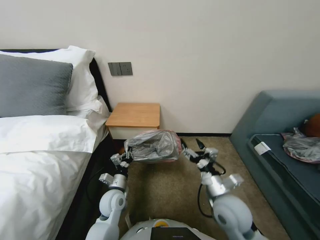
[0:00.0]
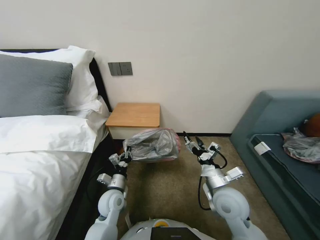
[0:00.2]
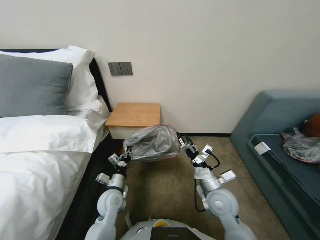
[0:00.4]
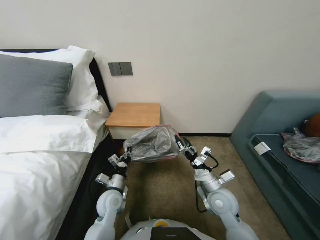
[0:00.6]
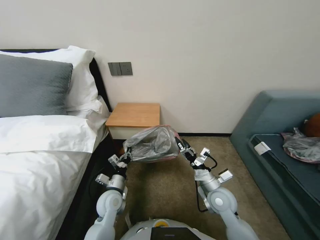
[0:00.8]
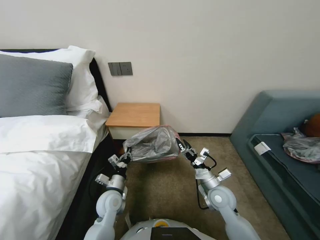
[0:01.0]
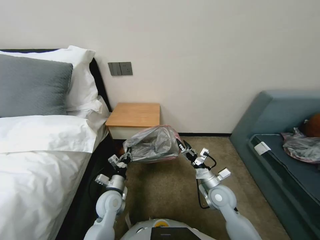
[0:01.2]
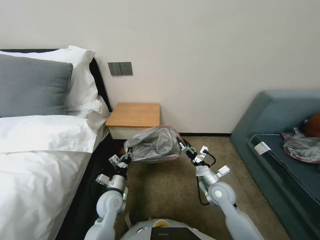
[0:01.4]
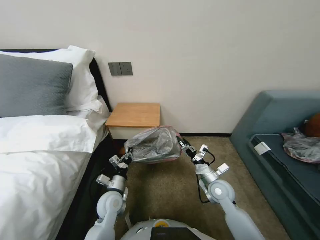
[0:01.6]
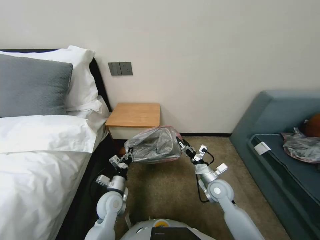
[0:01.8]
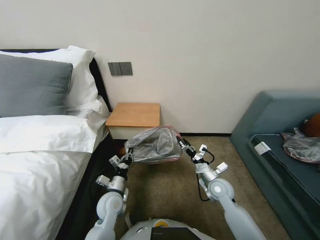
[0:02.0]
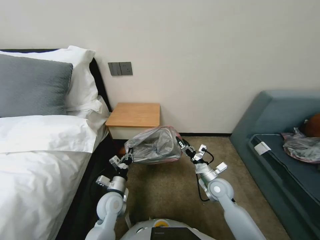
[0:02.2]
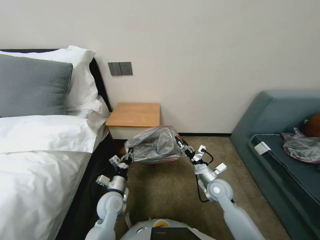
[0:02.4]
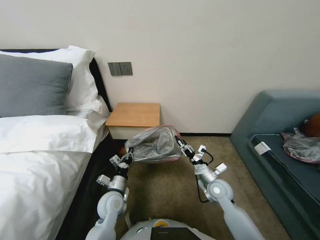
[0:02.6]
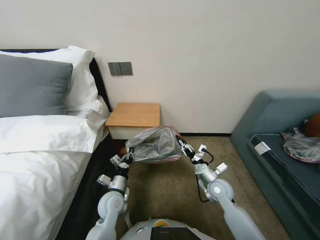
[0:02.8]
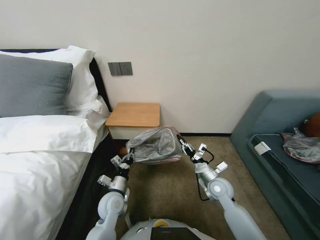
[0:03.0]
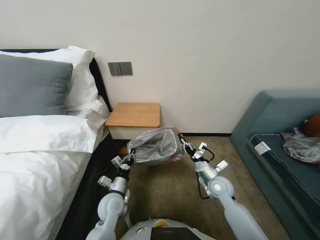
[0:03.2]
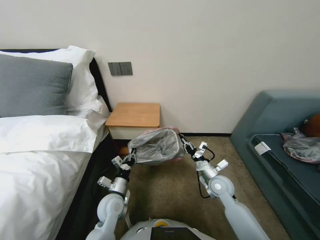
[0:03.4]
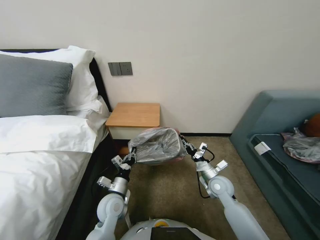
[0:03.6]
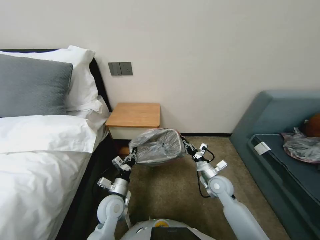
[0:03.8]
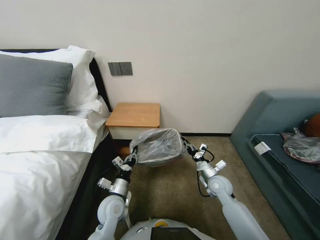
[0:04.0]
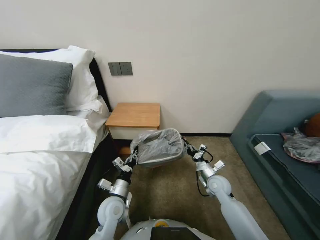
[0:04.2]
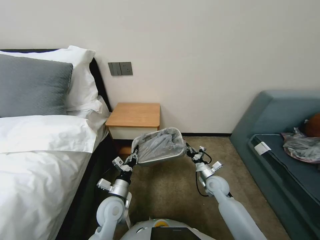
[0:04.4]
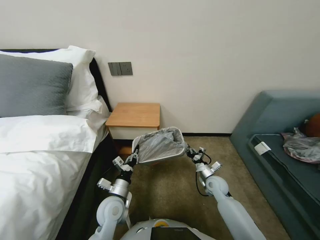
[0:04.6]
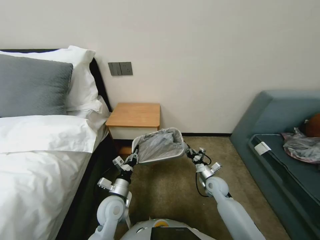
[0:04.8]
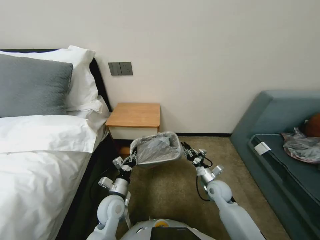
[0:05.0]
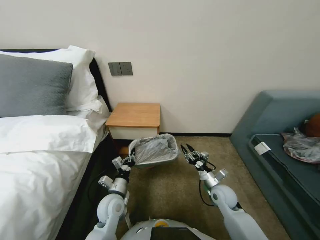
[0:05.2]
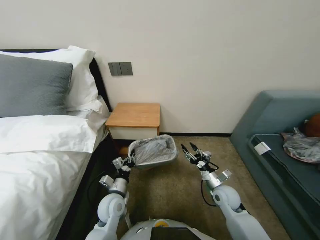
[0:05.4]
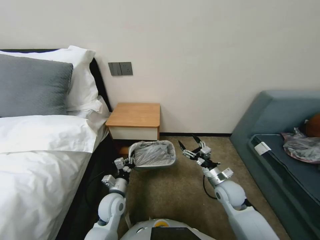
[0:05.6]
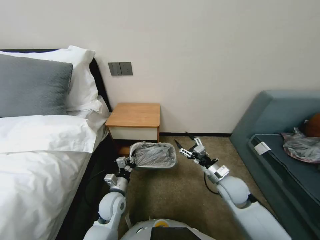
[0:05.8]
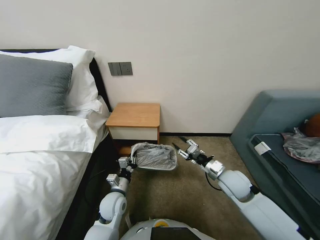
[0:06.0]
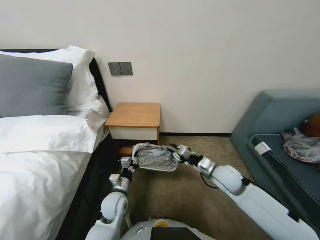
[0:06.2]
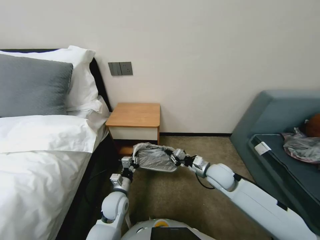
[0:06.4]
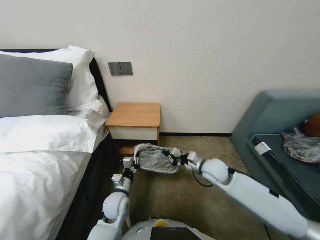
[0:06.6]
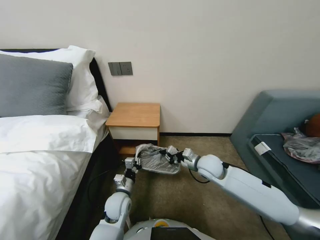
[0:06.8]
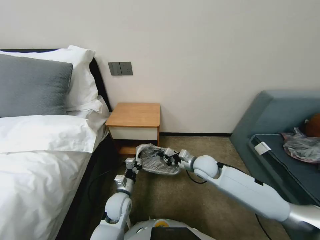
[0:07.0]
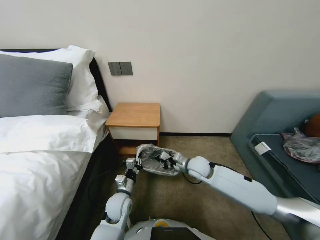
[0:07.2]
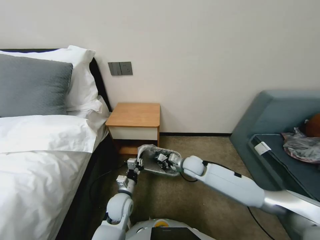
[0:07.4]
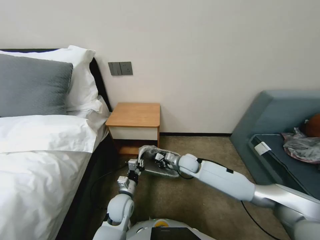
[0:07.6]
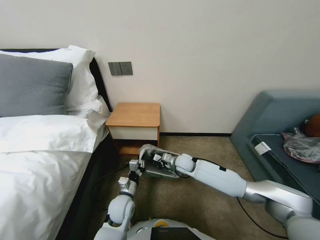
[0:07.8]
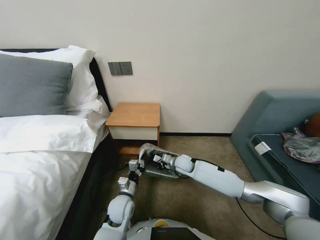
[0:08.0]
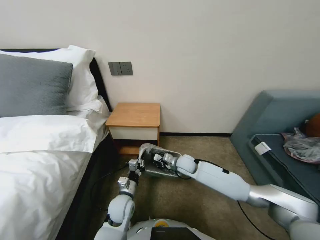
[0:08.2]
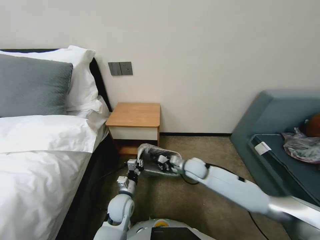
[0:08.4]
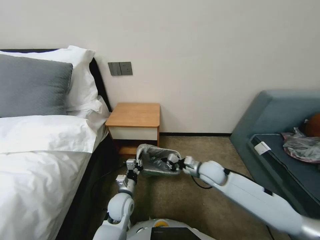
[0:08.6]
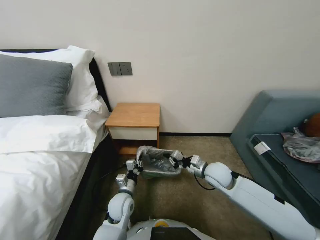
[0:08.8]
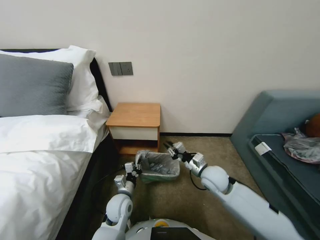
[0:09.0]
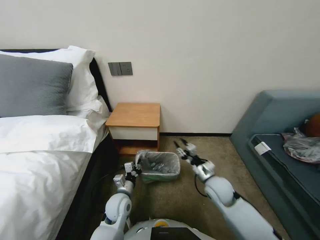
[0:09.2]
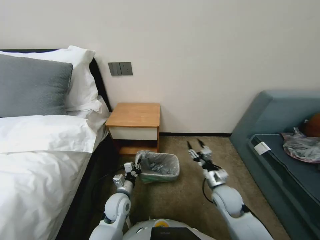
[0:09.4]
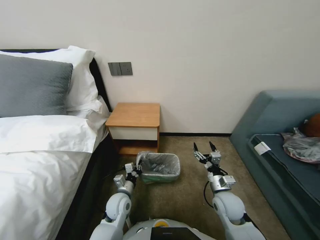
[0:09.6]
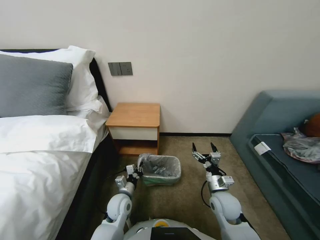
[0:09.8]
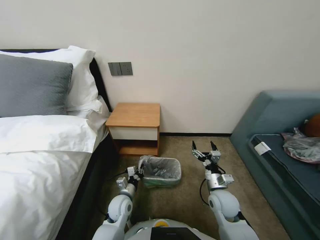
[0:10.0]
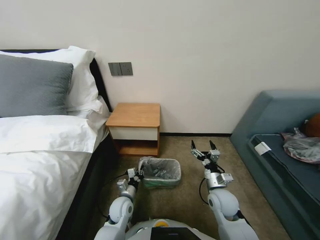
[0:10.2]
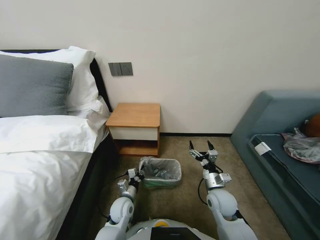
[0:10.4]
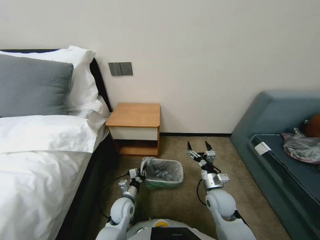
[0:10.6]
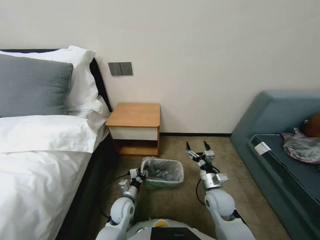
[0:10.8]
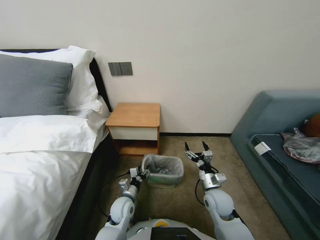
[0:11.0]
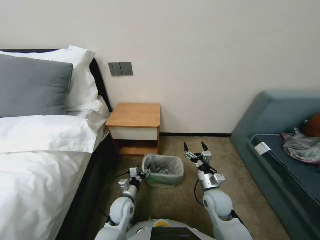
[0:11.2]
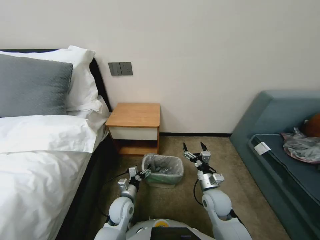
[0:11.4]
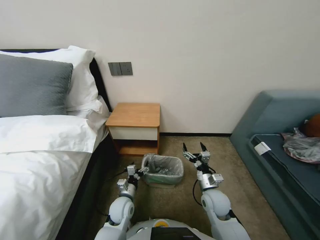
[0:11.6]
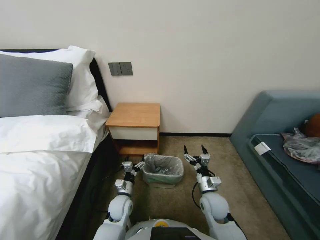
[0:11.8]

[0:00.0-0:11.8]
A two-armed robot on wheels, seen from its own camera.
Task of the whole recording: Pick up the garbage bag from the table and place it over the trash can.
0:00.0 to 0:01.4: The right gripper goes about 15 cm forward, downward and to the right.
0:01.4 to 0:03.0: The right gripper closes.
0:03.0 to 0:04.4: The right gripper moves roughly 5 cm.
0:04.4 to 0:06.0: The right gripper goes roughly 10 cm upward, and opens.
0:06.0 to 0:07.4: The right gripper travels to the left and forward by about 15 cm, and closes its fingers.
0:07.4 to 0:08.8: The right gripper is displaced to the right by about 5 cm.
0:08.8 to 0:10.4: The right gripper shifts about 10 cm backward and downward, and opens its fingers, while the left gripper travels downward by approximately 5 cm.
0:10.4 to 0:11.8: The left gripper opens its fingers.

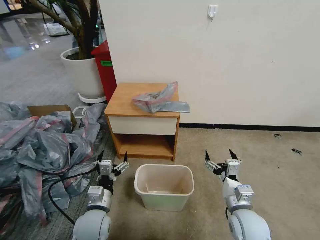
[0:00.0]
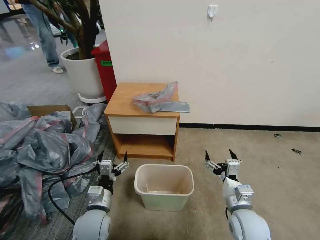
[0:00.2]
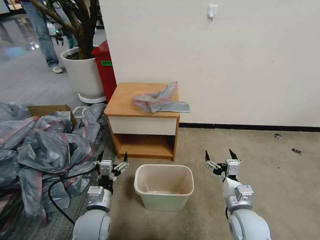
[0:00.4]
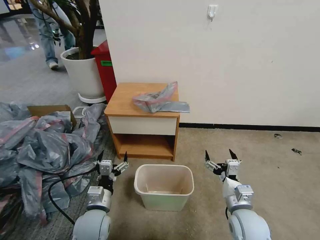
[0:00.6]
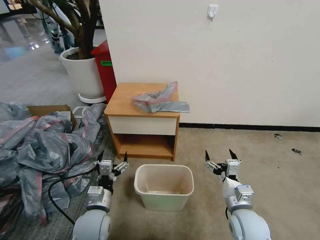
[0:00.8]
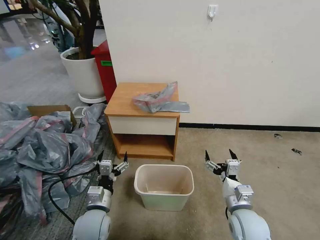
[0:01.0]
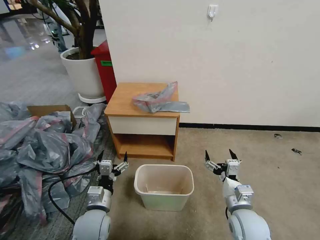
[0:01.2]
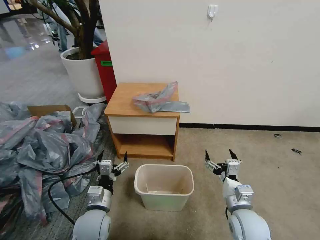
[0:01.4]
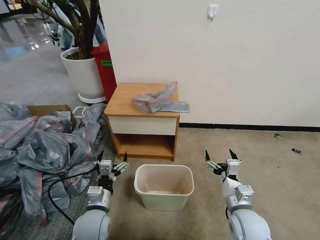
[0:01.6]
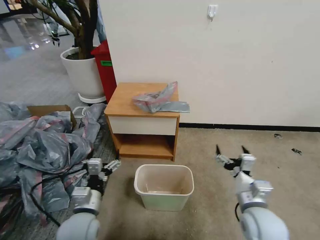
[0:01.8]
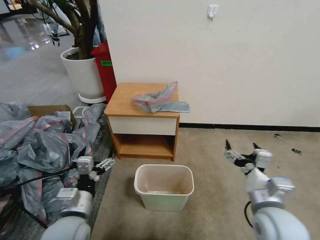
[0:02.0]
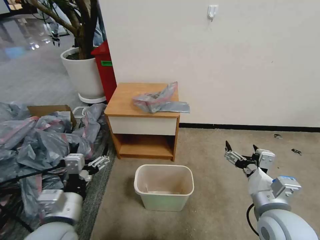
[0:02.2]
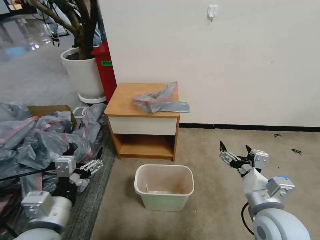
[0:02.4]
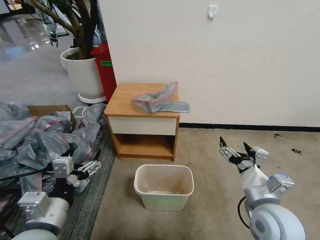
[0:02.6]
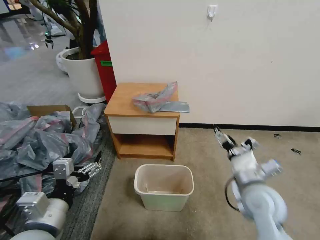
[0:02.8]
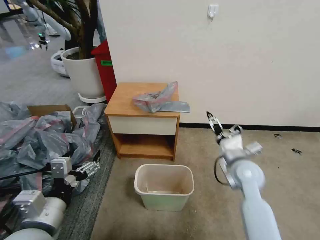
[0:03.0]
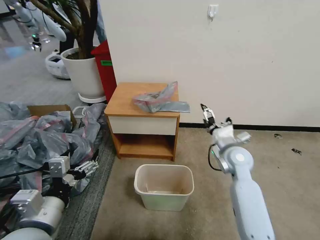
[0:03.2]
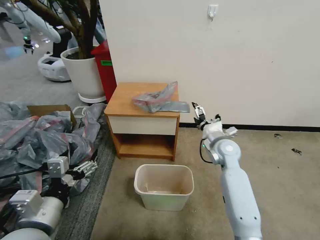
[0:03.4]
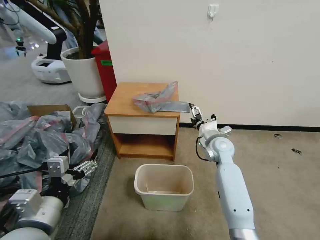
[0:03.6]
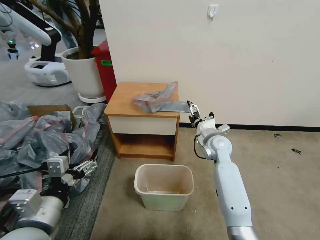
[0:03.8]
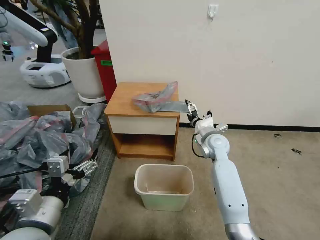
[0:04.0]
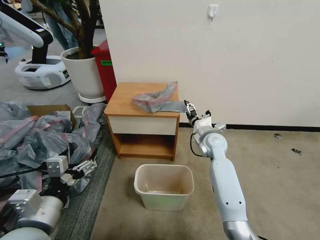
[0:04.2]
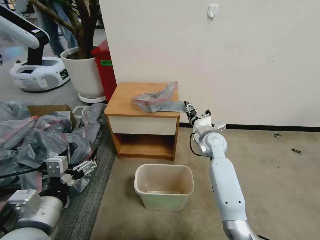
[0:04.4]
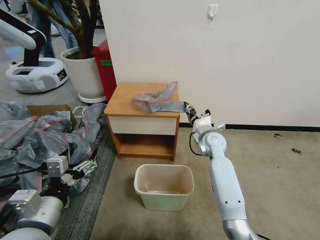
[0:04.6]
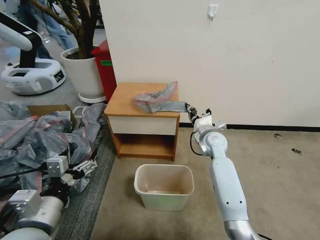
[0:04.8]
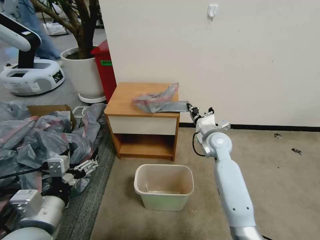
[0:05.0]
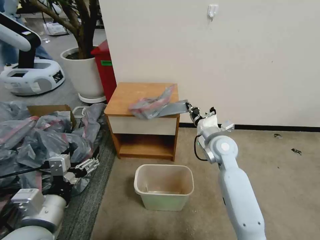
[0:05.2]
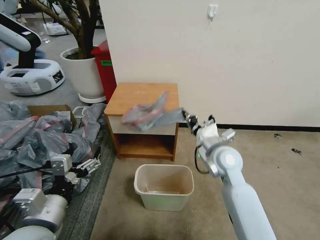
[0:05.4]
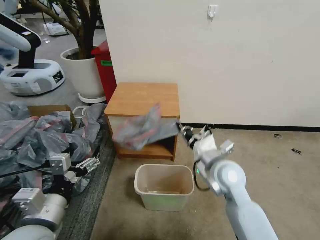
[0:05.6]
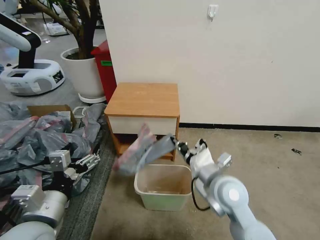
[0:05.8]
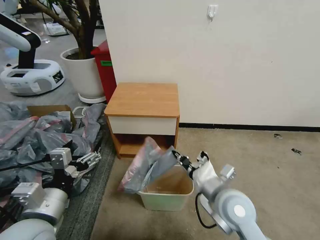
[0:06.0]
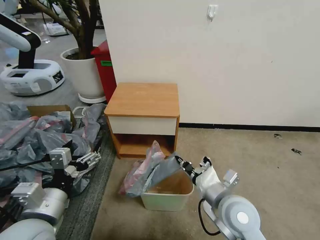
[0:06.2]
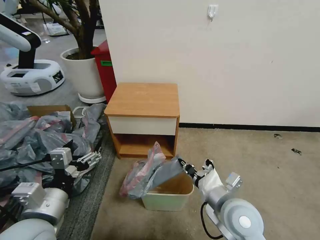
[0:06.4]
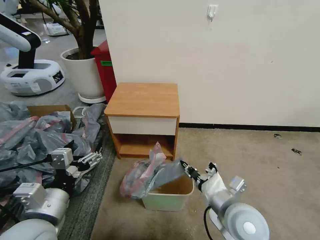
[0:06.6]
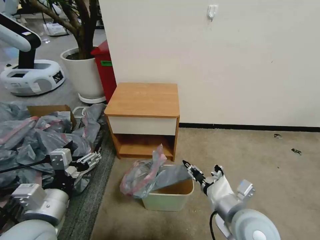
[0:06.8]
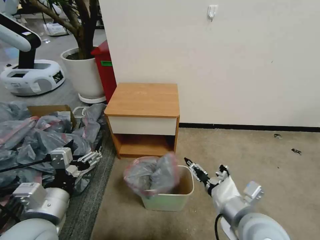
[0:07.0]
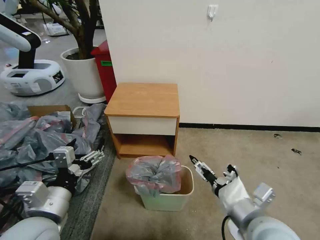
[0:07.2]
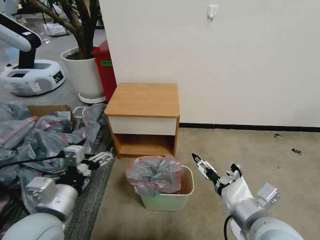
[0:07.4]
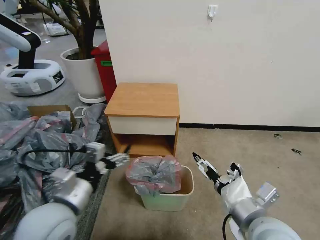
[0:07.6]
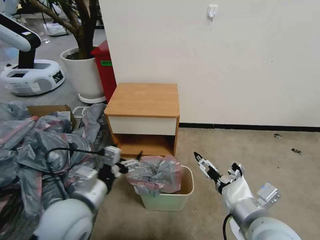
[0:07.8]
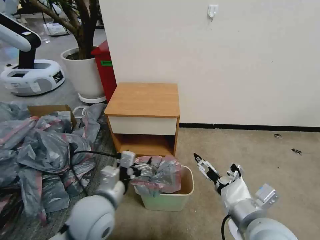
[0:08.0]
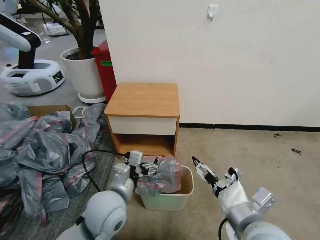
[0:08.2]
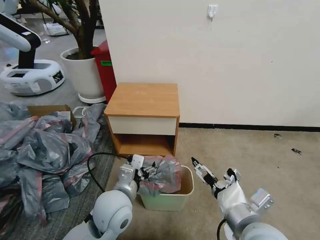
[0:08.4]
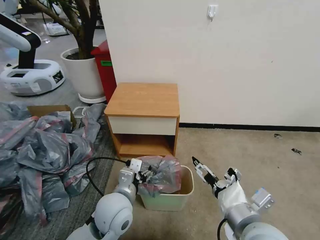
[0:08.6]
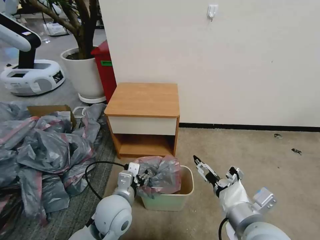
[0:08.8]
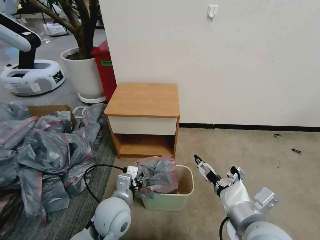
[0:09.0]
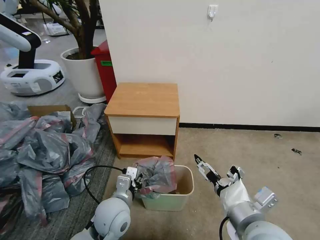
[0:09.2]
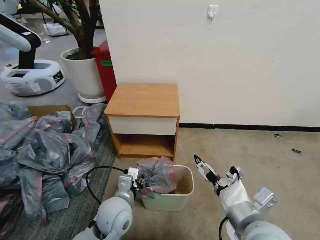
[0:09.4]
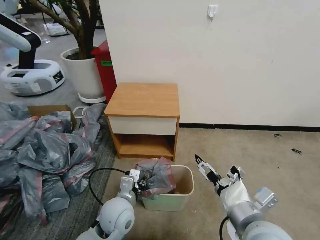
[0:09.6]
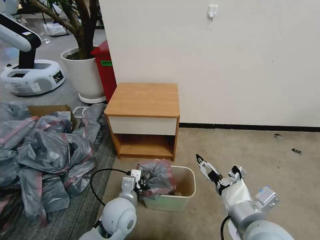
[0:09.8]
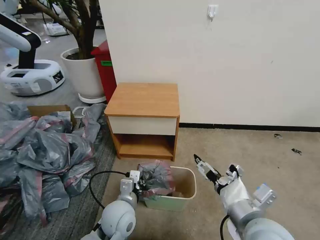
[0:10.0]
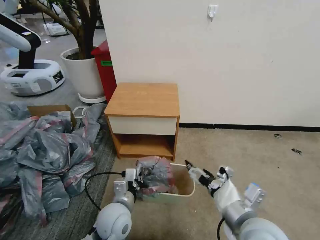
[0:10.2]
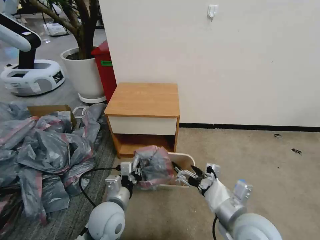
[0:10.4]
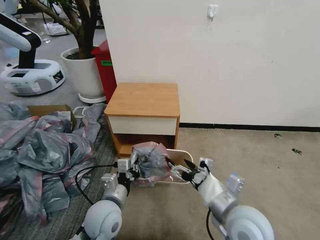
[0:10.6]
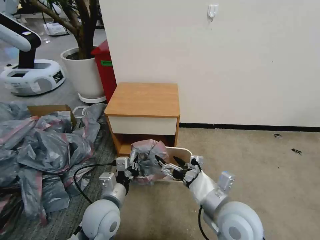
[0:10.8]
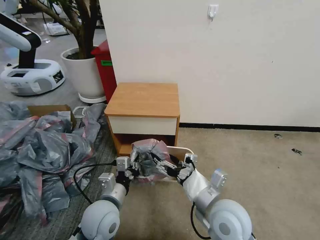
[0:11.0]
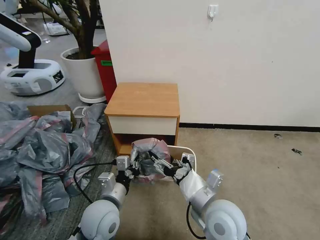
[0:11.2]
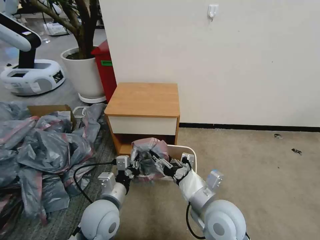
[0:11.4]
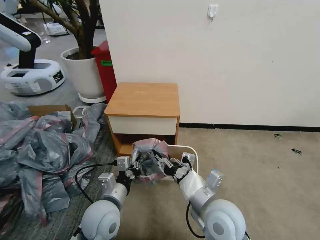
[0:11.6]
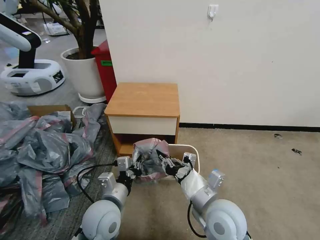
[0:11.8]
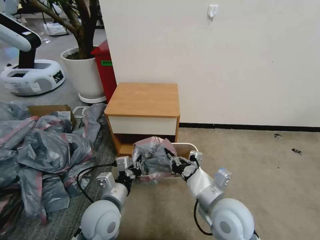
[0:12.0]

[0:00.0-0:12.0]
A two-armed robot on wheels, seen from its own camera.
Task of the whole recording: Pick up the garbage bag from the table and place it over the trash can.
0:01.6 to 0:03.0: The left gripper heads upward and backward, covering some 20 cm, while the right gripper moves forward and upward, approximately 15 cm.
0:03.0 to 0:04.4: The right gripper goes roughly 15 cm forward and to the left, and closes.
0:04.4 to 0:06.0: The right gripper is displaced backward by approximately 25 cm, and closes its fingers.
0:06.0 to 0:07.6: The right gripper heads backward, covering about 10 cm, and opens up.
0:07.6 to 0:09.0: The left gripper moves downward and to the right, approximately 15 cm, and closes.
0:09.0 to 0:10.4: The left gripper closes its fingers.
0:10.4 to 0:12.0: The right gripper shifts by roughly 5 cm, and closes up.
